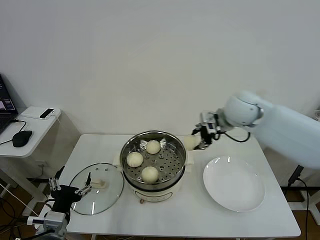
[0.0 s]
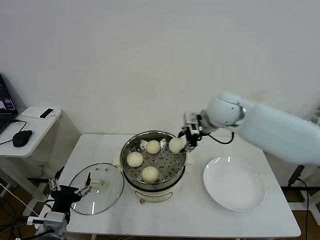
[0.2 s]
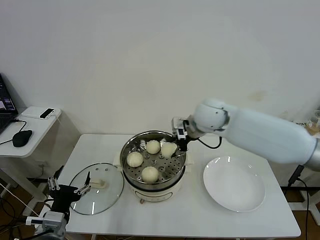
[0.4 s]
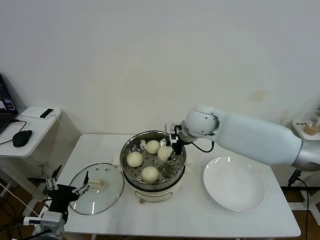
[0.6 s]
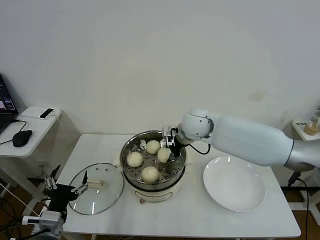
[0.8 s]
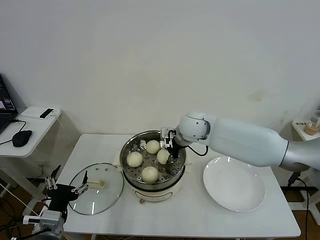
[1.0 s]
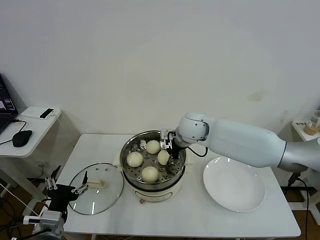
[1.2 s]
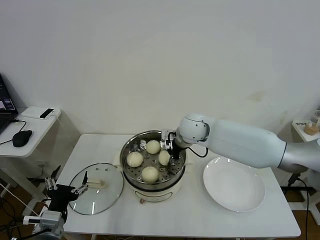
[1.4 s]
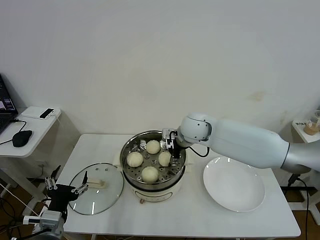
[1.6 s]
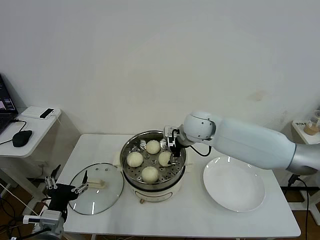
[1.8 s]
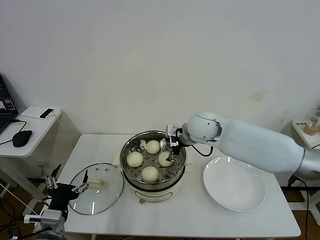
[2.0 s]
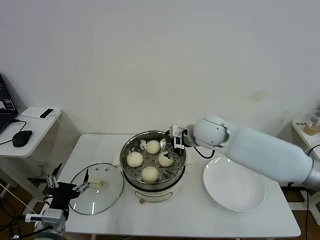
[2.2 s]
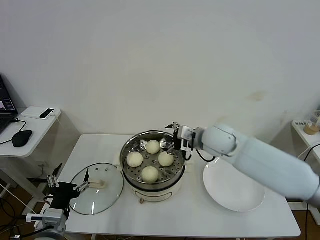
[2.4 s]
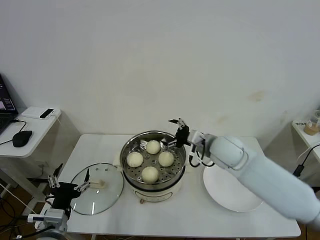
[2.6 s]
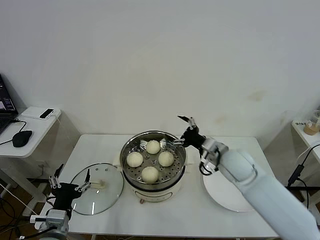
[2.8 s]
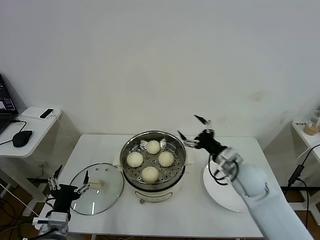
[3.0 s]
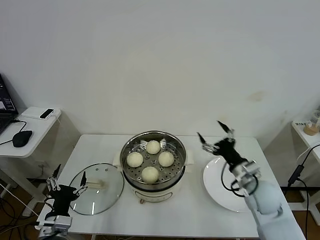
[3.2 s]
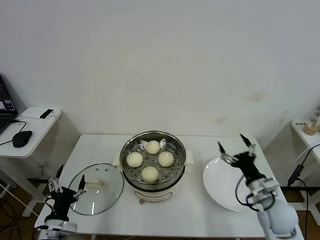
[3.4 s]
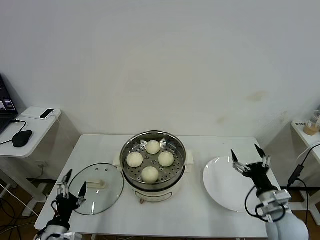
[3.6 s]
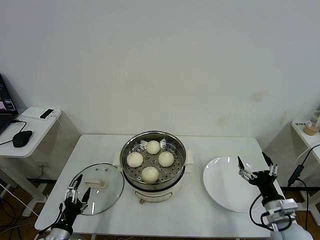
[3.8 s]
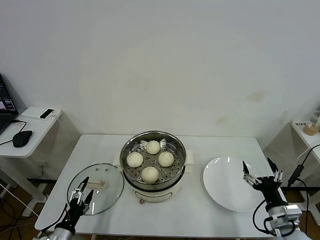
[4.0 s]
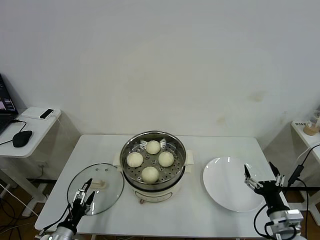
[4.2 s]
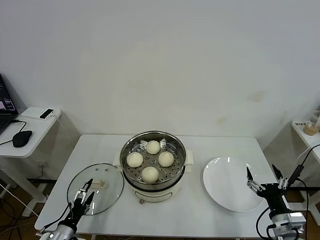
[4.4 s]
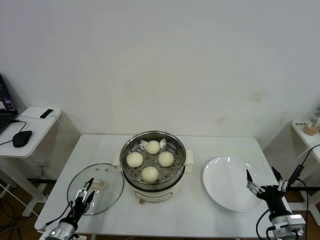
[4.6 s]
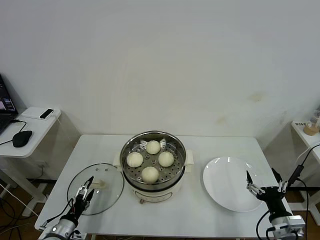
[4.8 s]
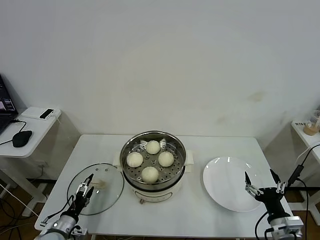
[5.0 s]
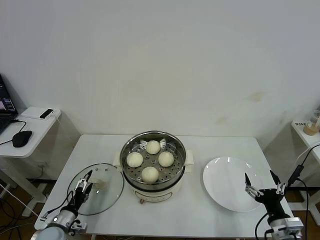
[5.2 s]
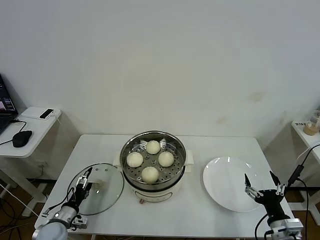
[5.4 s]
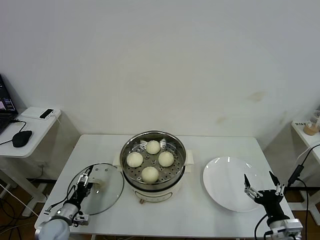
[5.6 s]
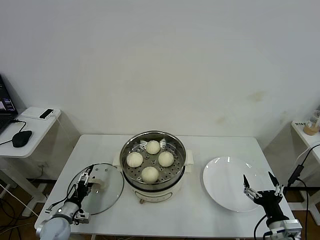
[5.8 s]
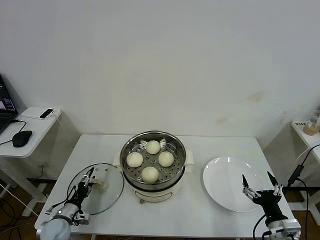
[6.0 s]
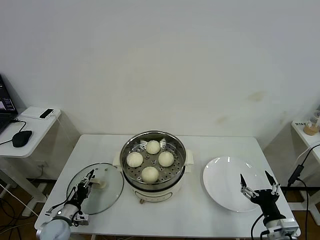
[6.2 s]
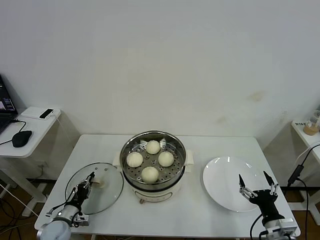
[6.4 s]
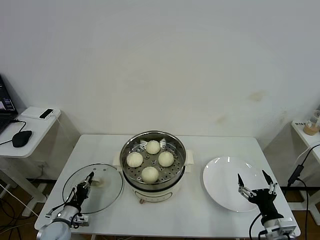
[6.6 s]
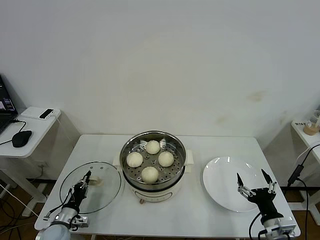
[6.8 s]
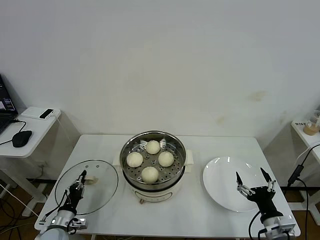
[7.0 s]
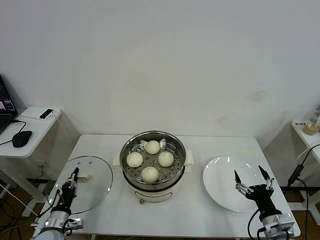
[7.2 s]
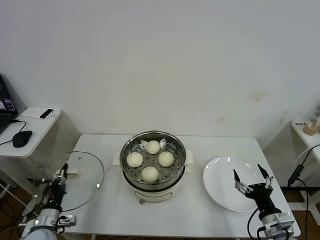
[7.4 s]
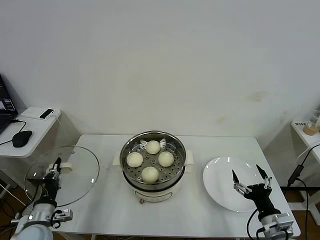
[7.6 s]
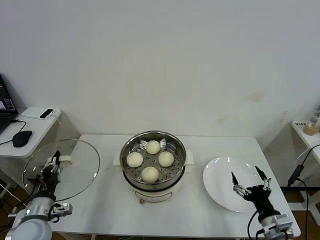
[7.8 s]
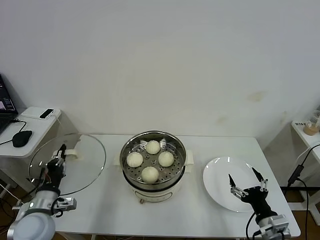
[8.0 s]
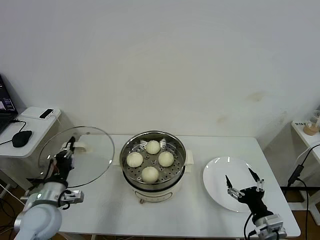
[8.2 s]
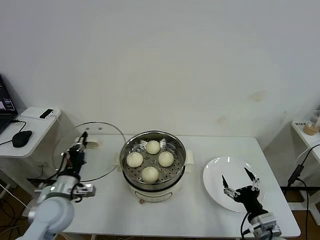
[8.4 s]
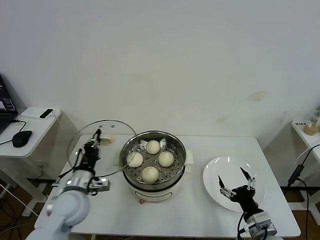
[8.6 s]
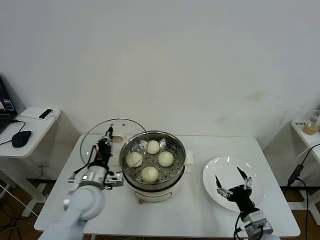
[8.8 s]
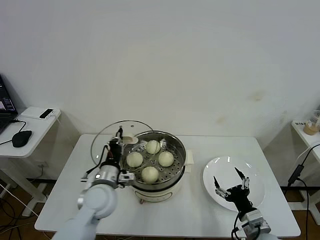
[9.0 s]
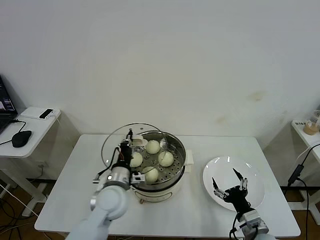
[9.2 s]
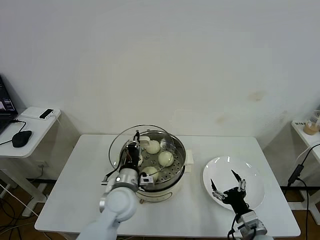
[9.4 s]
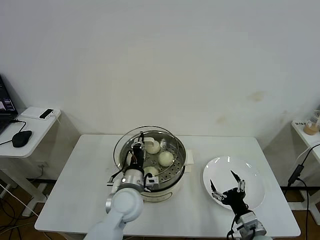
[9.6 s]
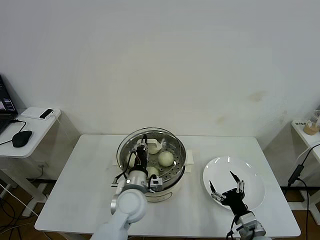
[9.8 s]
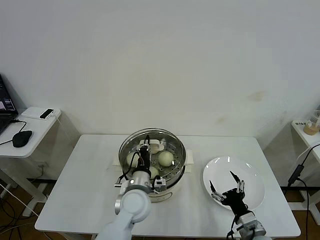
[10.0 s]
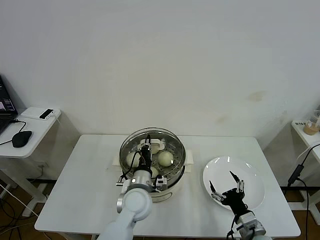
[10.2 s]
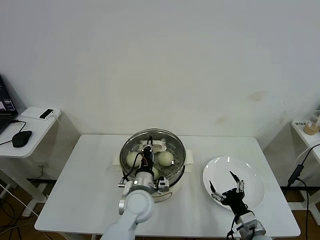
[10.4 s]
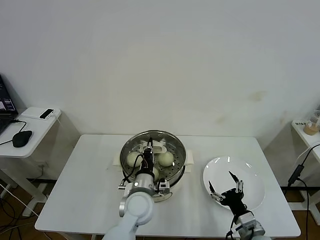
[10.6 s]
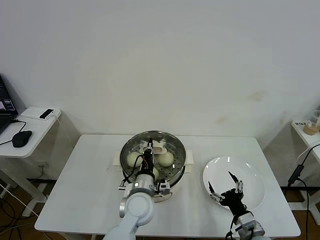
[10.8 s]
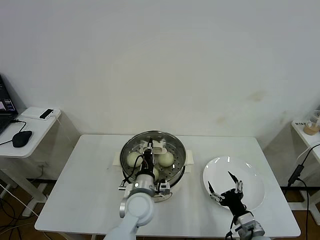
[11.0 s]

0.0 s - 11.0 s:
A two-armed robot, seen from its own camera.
Task of the whole recording: take steamed baozi put them in steamer then cover it.
Step, 0.0 s - 1.8 s: Place the baozi on the steamer with right gripper.
Step, 2.0 s - 6.6 s: Grasp the pot lid with left gripper.
0.0 s - 1.6 s: The right gripper goes some 15 cm to the left and downward, and opens its fingers.
1.6 s - 3.2 s: The right gripper heads to the right, backward and downward, covering approximately 25 cm.
3.2 s - 4.8 s: The right gripper moves backward, to the right and downward, about 20 cm; the left gripper is displaced downward and to the left by about 15 cm.
4.8 s - 6.2 s: The left gripper heads forward, covering some 5 cm, and closes.
6.2 s - 7.8 s: The left gripper heads upward, covering some 15 cm, and closes.
7.8 s - 9.4 s: The left gripper goes roughly 25 cm to the right. The right gripper ends up about 5 cm from where it was.
9.4 s - 11.0 s: The left gripper goes about 5 cm to the right.

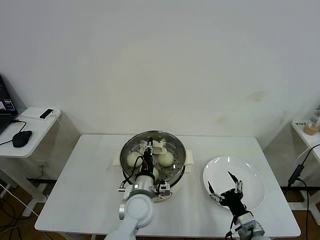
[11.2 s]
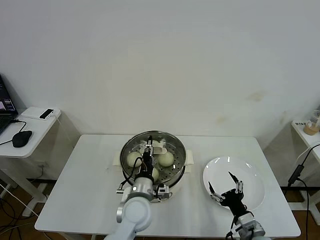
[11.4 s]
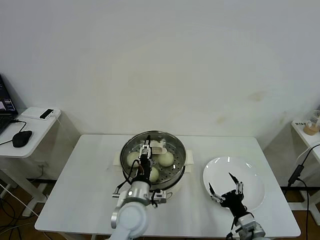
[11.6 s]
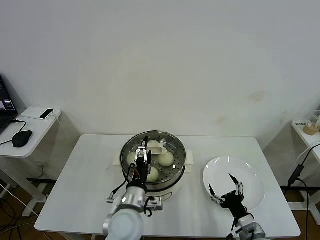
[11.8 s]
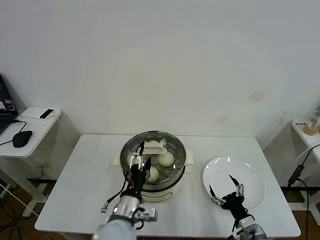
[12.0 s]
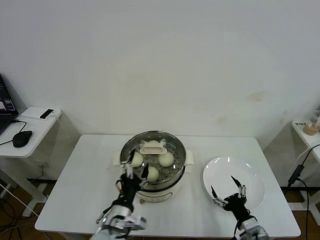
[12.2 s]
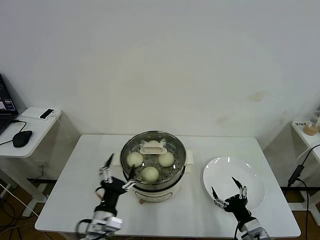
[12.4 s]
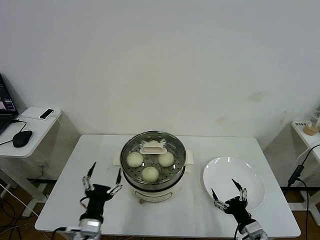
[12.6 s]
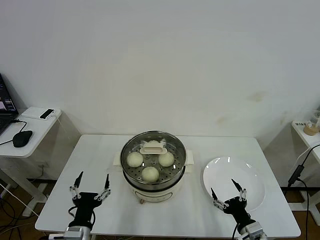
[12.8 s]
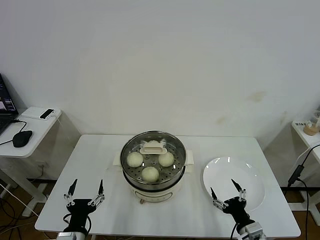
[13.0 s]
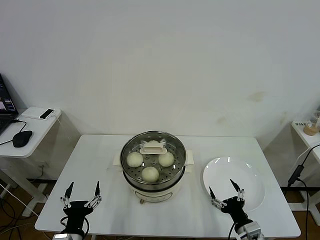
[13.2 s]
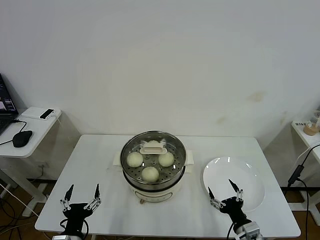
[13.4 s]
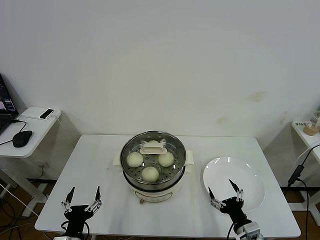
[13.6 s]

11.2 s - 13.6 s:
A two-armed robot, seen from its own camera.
Task of the whole recording: take steamed baozi put them in steamer then cover it.
11.2 s - 12.4 s: The left gripper shifts about 15 cm backward and to the left, and opens.
12.4 s - 13.6 s: The left gripper shifts roughly 10 cm to the left and backward.
